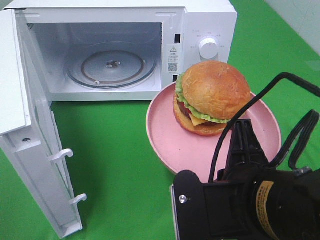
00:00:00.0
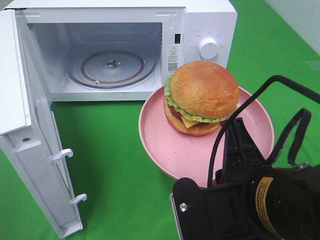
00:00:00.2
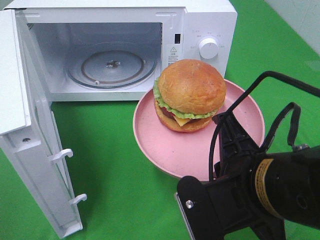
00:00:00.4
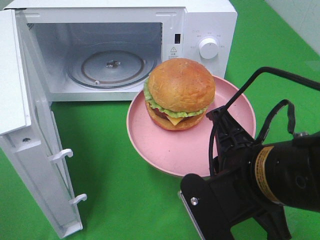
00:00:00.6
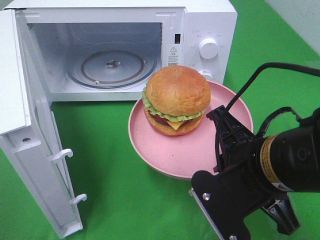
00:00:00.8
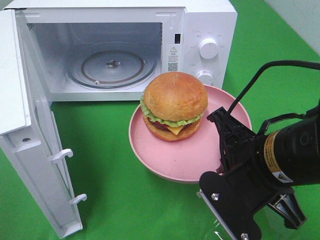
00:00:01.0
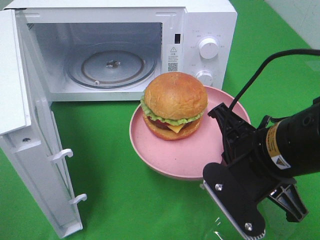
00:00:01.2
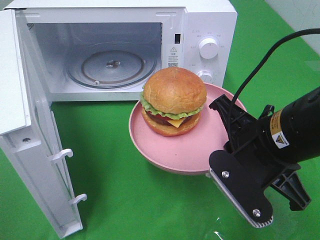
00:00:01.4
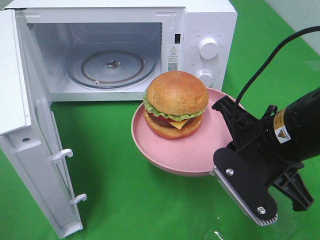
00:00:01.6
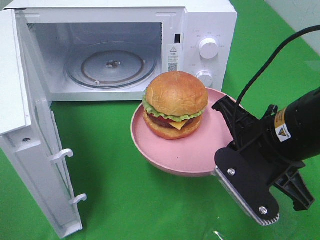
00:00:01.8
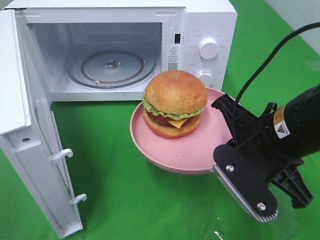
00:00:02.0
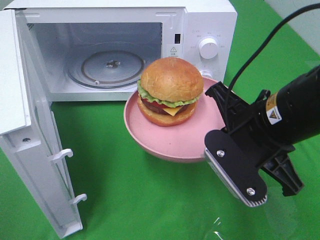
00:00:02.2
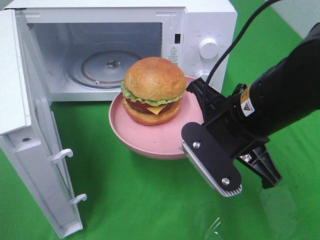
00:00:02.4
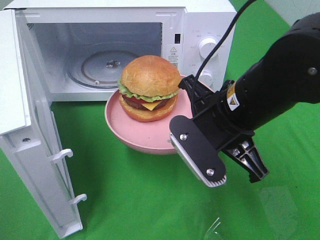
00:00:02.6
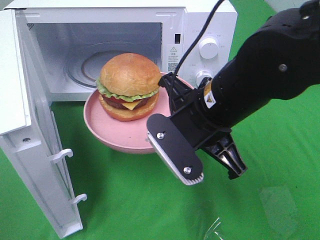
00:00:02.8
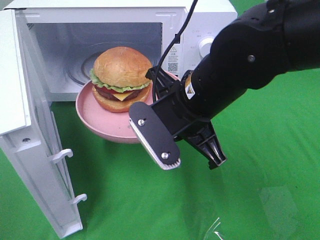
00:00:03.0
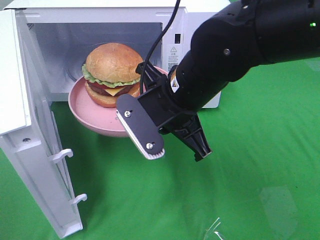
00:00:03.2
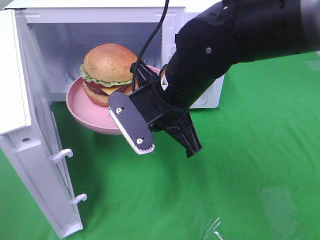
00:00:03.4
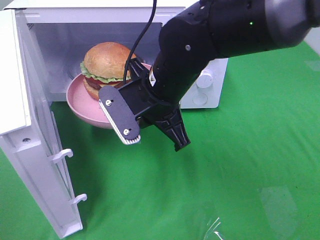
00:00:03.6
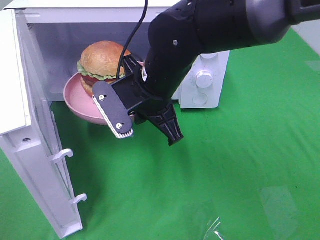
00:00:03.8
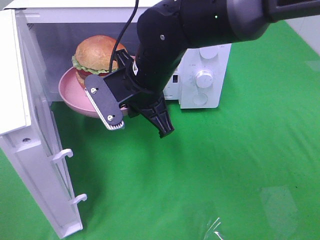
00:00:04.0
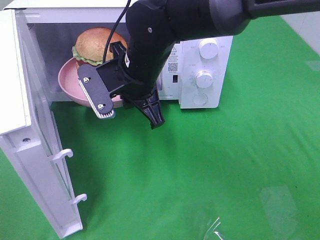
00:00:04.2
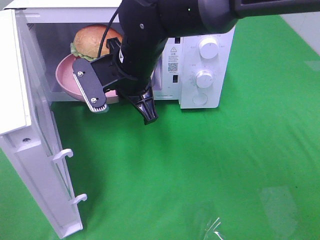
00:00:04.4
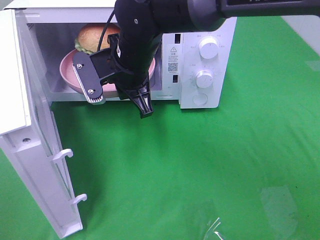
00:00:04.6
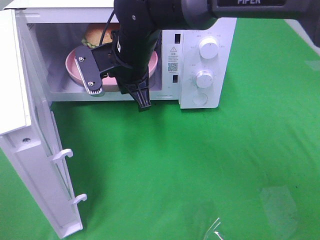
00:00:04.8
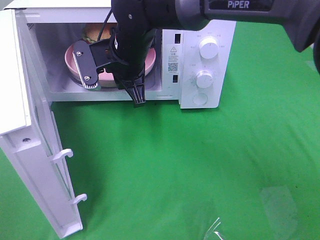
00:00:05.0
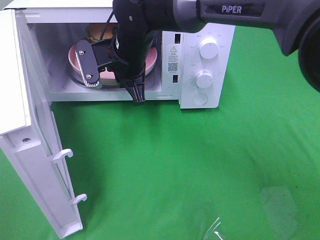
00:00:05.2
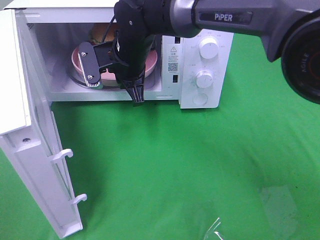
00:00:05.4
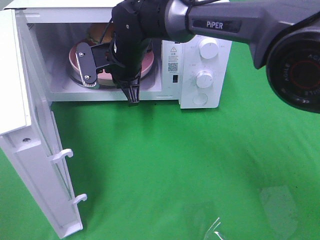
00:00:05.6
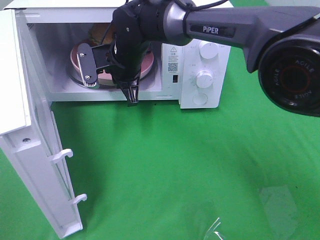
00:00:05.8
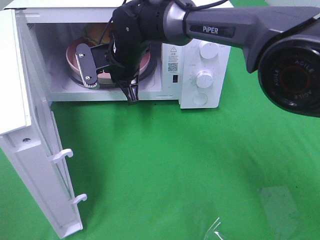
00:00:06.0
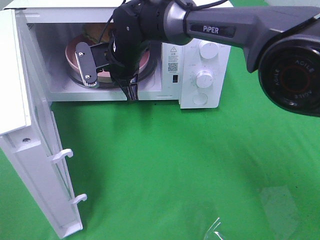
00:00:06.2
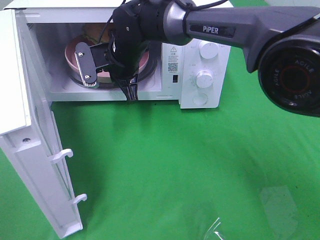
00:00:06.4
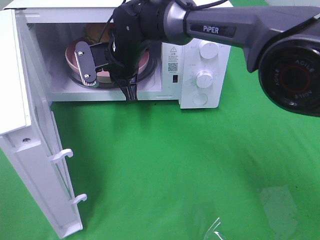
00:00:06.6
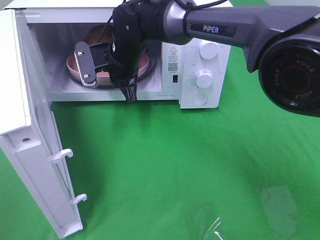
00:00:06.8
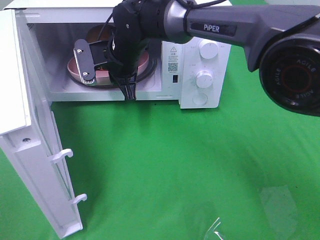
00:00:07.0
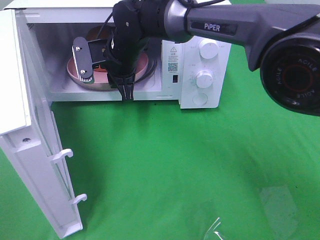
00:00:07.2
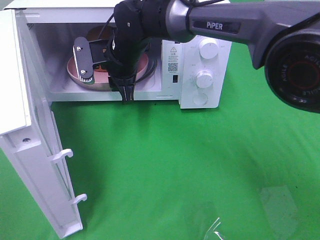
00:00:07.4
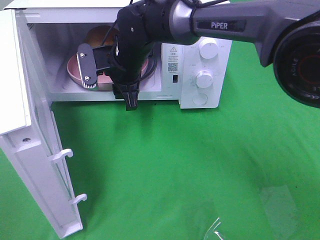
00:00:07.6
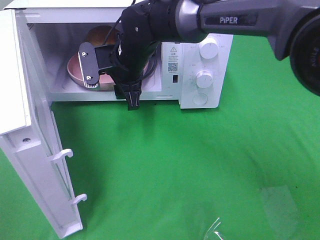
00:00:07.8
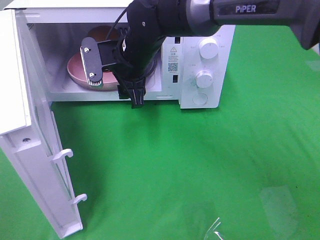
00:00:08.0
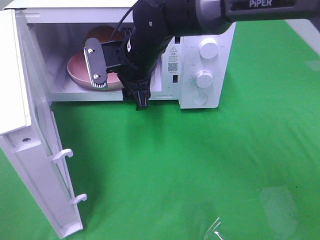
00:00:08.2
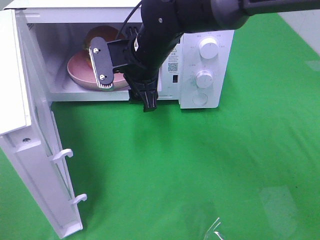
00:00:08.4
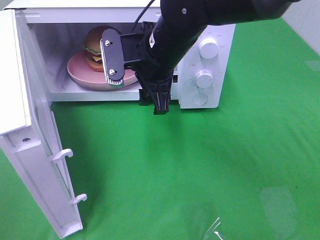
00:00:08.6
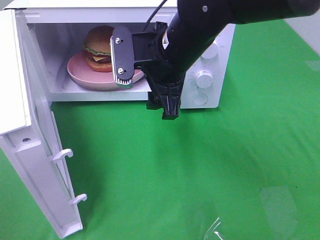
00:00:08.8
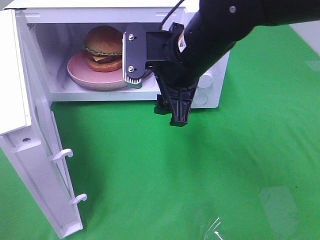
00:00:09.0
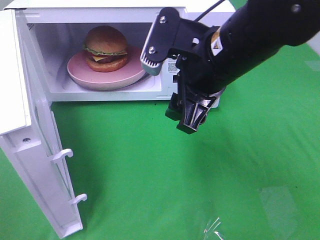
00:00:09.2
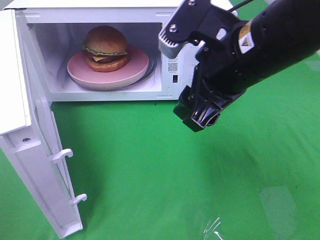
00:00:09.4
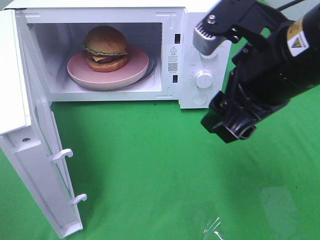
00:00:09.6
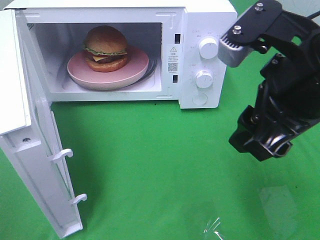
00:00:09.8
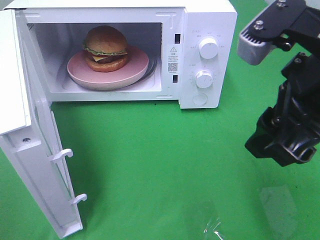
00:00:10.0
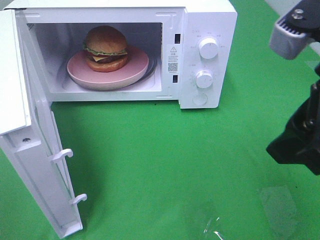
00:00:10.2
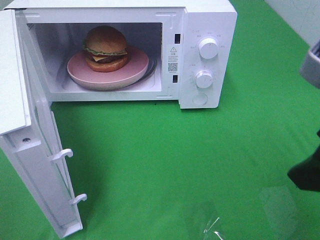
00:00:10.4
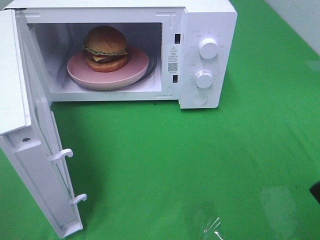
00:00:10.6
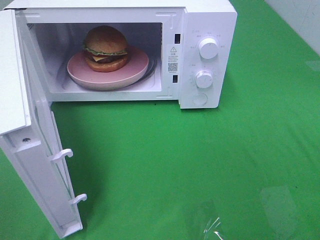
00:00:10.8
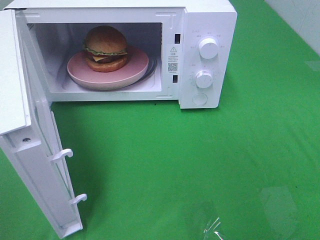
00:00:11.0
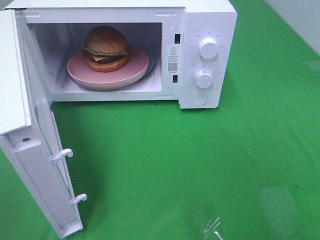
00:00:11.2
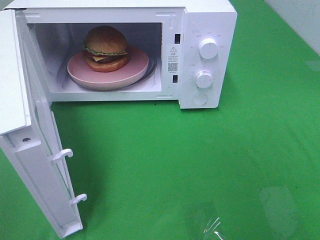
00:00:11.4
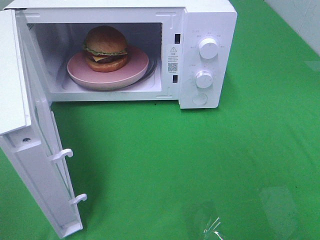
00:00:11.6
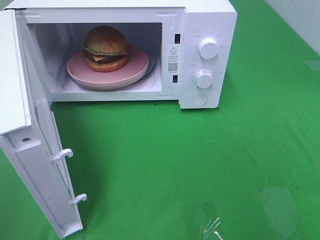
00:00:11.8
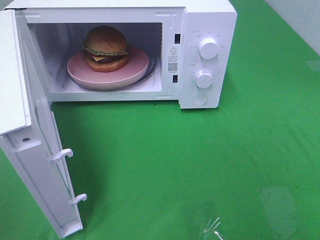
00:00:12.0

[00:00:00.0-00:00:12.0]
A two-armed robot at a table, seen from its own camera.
Task of the whole recording: Heat the burger.
Step, 00:00:00.0 to 00:00:08.8: Right hand: place the plate in the microwave.
00:00:00.0 to 00:00:01.6: The right gripper shifts roughly 10 cm forward.
00:00:01.6 to 00:00:03.0: The right gripper heads to the left and forward, covering about 10 cm.
00:00:03.0 to 00:00:04.4: The right gripper goes approximately 15 cm forward and to the left.
00:00:04.4 to 00:00:06.0: The right gripper heads forward, covering about 10 cm.
00:00:06.0 to 00:00:07.6: The right gripper opens up.
00:00:07.6 to 00:00:09.0: The right gripper travels backward, to the right and upward by some 15 cm.
00:00:09.0 to 00:00:10.4: The right gripper heads backward and to the right, covering about 20 cm.
00:00:10.4 to 00:00:12.0: The right gripper moves backward and to the right, roughly 15 cm.

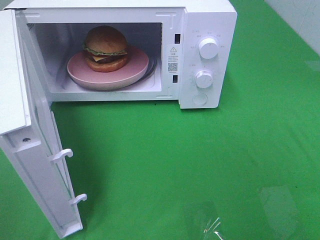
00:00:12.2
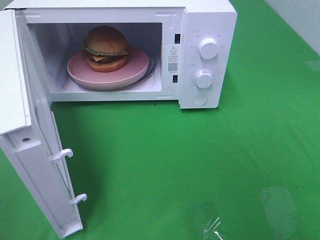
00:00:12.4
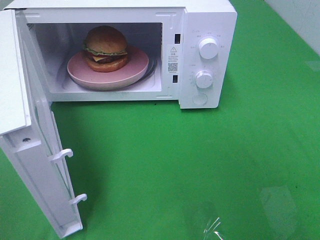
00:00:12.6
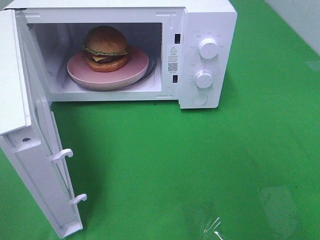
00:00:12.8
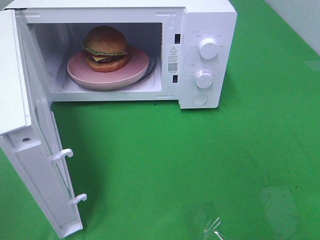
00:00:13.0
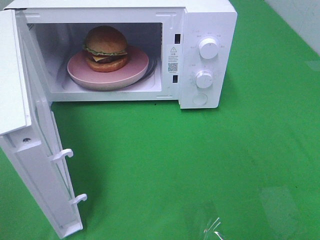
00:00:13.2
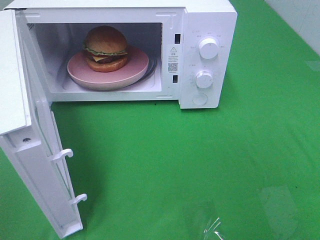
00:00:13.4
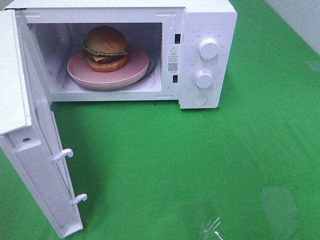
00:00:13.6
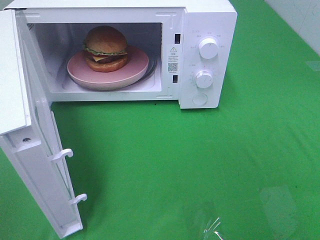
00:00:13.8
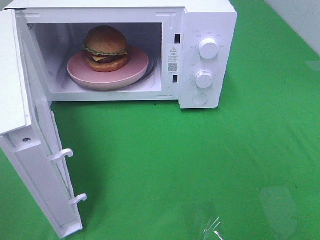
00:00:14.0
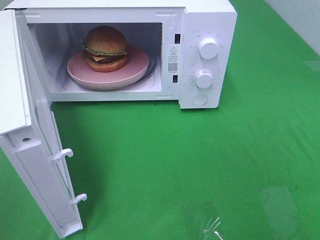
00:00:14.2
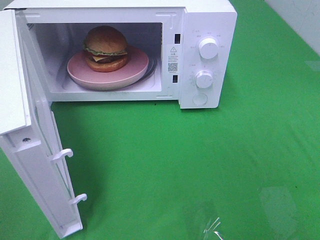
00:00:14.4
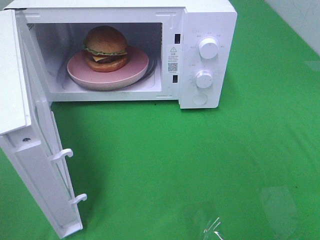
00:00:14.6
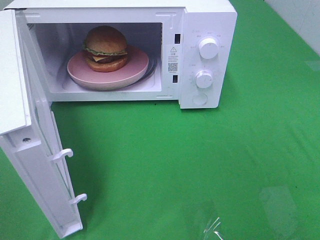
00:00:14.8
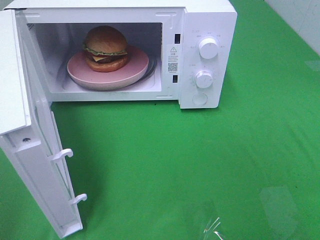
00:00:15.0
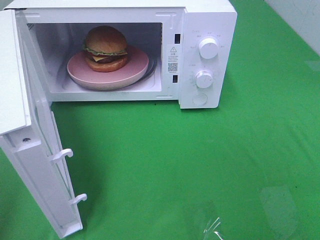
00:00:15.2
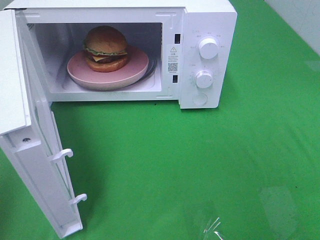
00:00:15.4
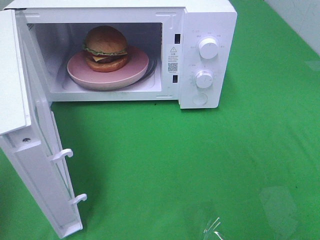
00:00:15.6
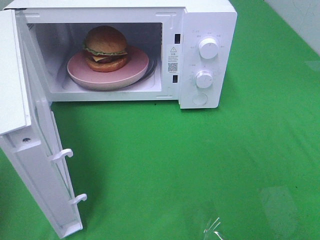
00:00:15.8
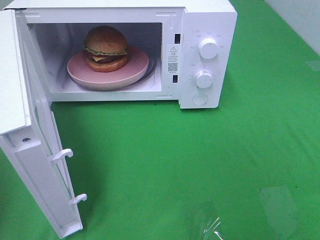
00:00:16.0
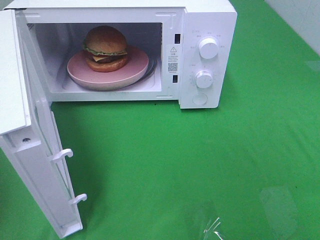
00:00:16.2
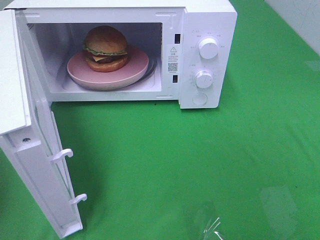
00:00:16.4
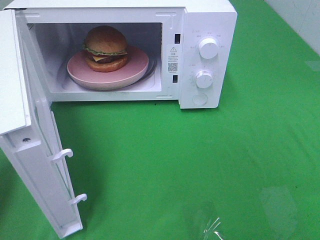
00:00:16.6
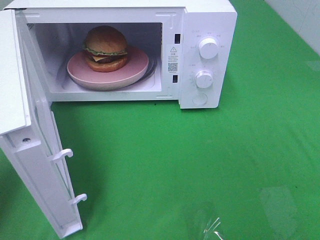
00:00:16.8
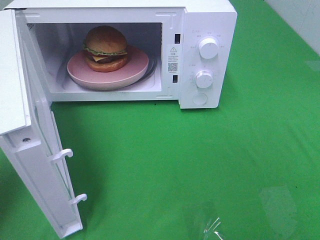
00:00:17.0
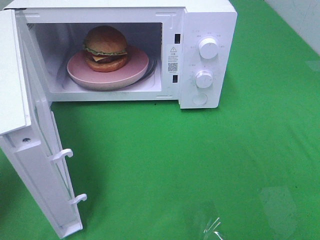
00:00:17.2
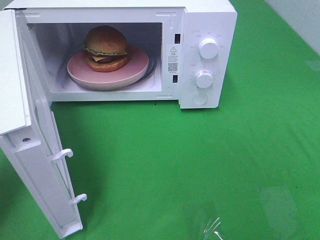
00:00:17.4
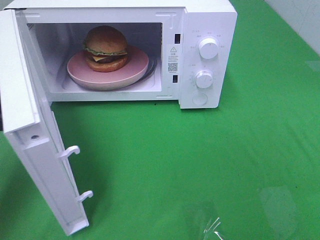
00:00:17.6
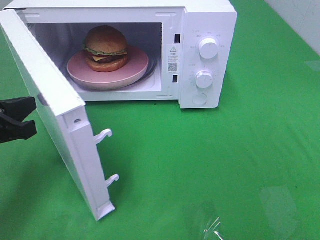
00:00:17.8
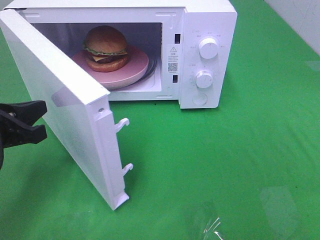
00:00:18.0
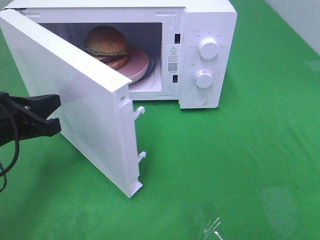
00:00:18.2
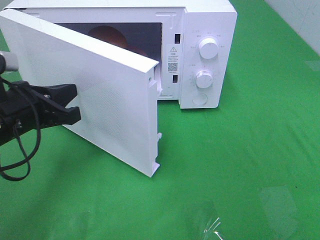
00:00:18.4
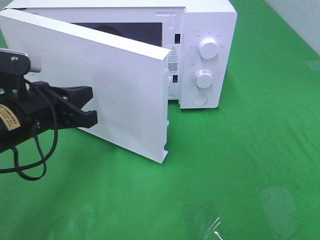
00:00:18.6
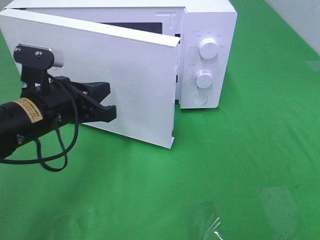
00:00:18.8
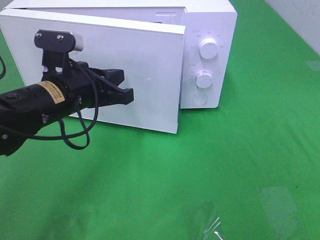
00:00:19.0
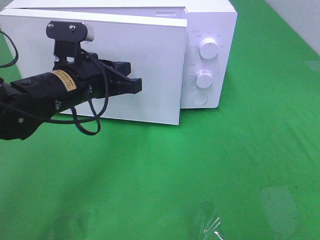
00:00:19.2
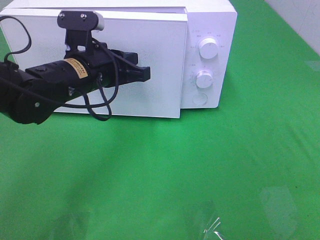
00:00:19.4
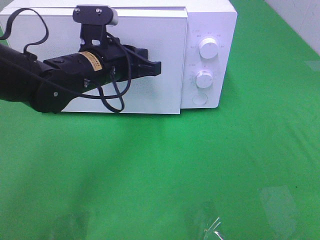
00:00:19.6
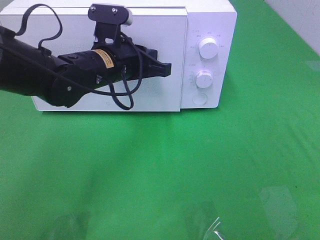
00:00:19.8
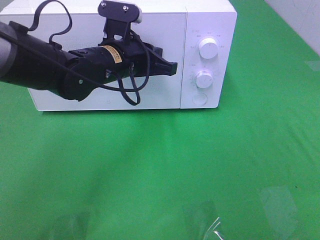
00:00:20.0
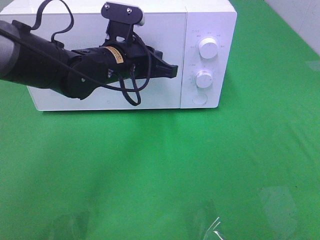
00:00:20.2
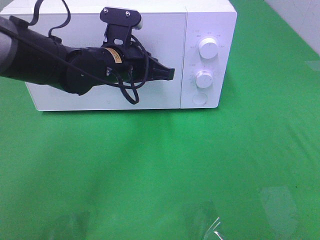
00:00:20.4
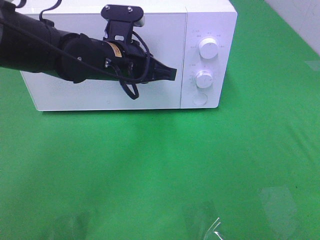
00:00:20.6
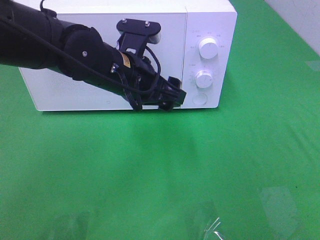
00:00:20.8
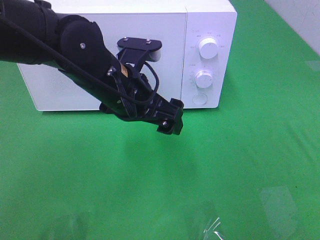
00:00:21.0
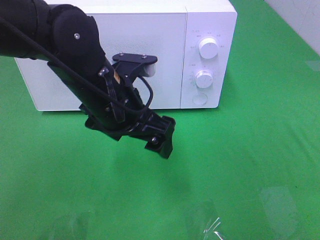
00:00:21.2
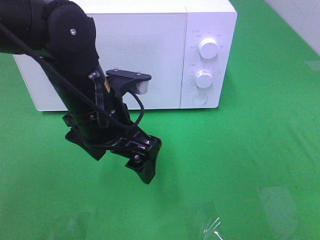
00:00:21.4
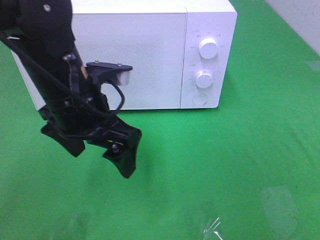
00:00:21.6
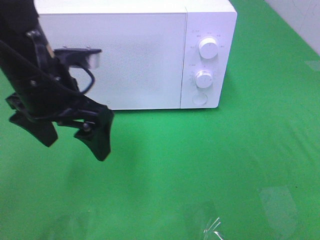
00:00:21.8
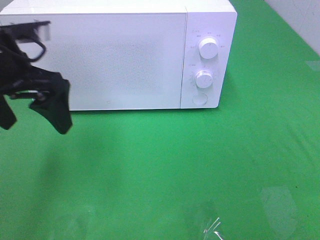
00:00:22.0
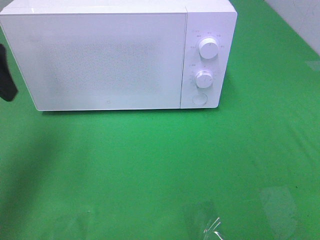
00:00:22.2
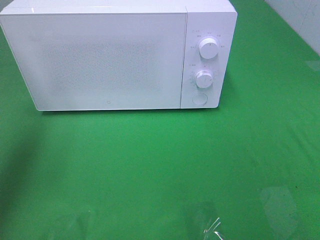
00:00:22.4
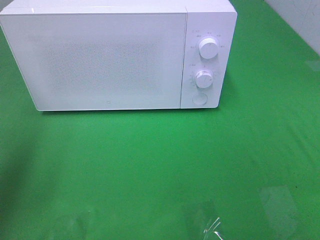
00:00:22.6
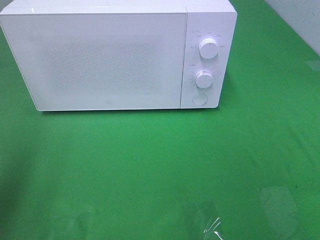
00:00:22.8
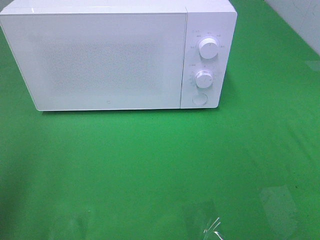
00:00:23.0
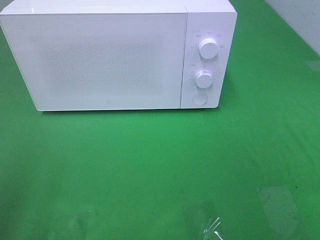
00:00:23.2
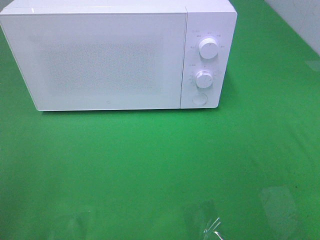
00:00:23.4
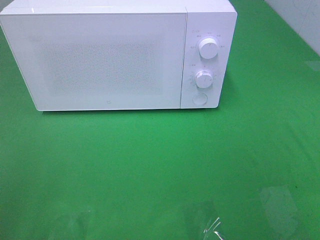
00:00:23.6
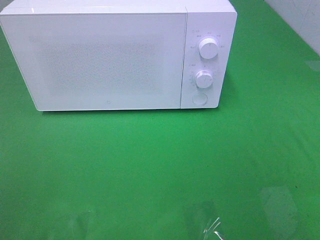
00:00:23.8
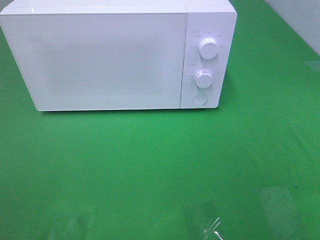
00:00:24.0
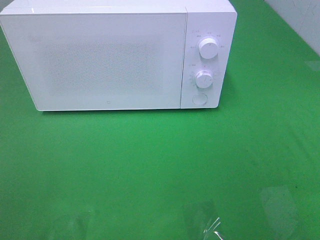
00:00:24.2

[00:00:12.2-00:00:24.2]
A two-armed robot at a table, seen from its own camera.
Task of the whole recording: Heat the burger.
Step, 00:00:12.2 to 00:00:20.8: Left hand: close the microwave door.
00:00:12.2 to 00:00:13.8: Both grippers stay put.
00:00:16.6 to 00:00:18.2: The left gripper heads to the right and downward, covering approximately 10 cm.
00:00:18.2 to 00:00:19.8: The left gripper shifts approximately 20 cm to the right and forward.
00:00:19.8 to 00:00:21.2: The left gripper heads backward, covering approximately 10 cm, and opens up.
00:00:21.2 to 00:00:22.6: The left gripper moves to the left and upward, some 30 cm.
00:00:22.6 to 00:00:24.2: The left gripper is displaced backward by approximately 20 cm.
